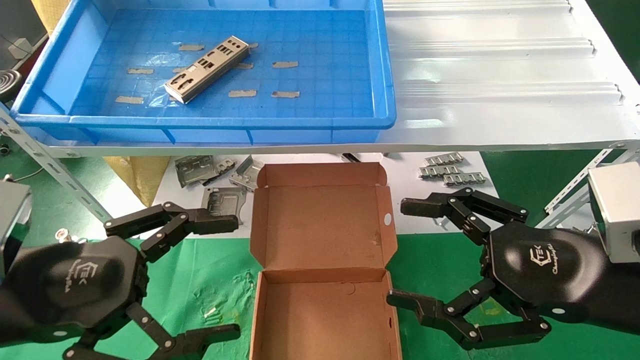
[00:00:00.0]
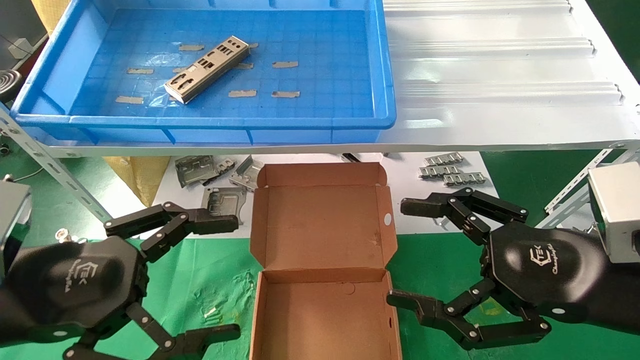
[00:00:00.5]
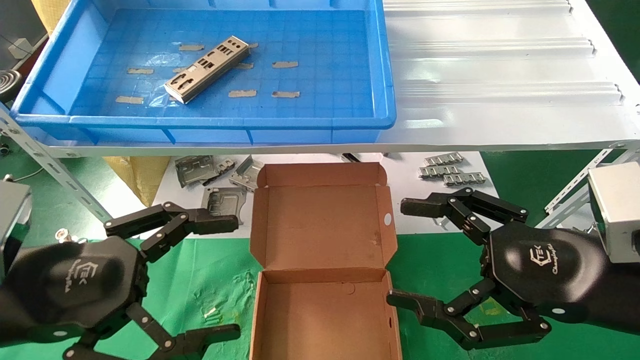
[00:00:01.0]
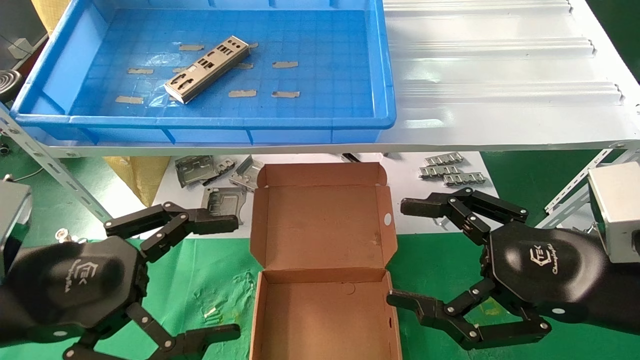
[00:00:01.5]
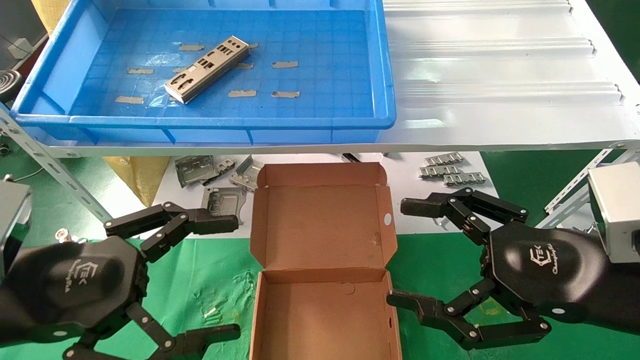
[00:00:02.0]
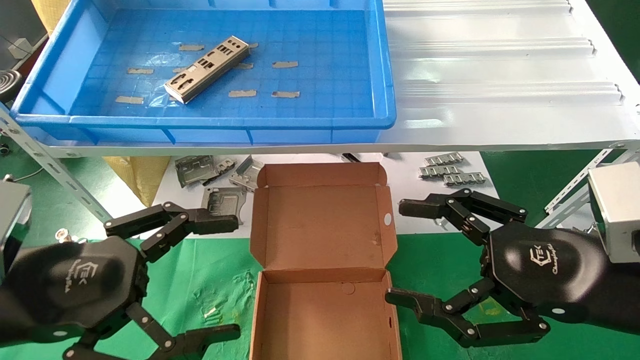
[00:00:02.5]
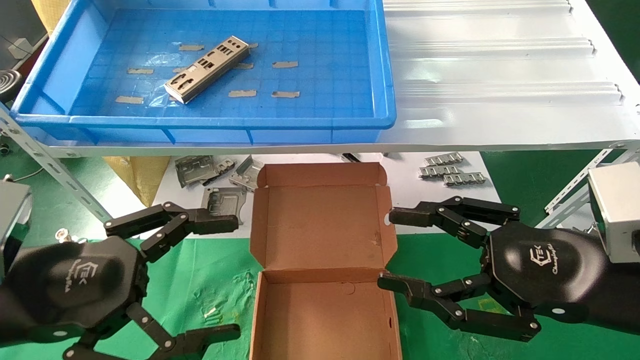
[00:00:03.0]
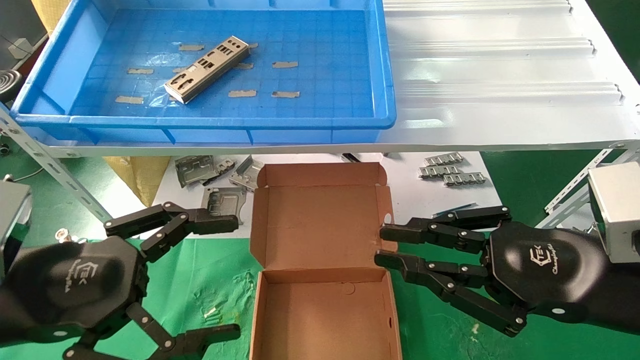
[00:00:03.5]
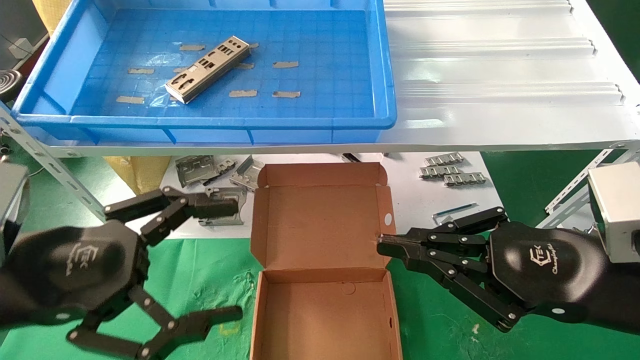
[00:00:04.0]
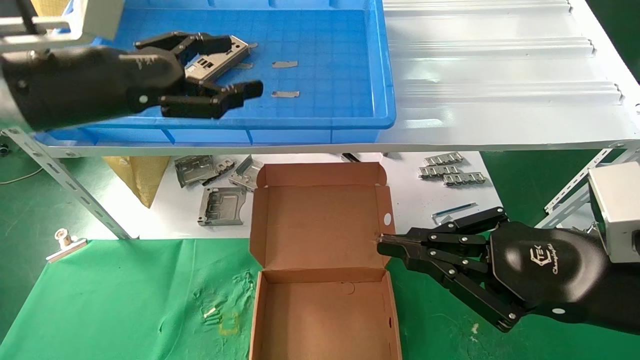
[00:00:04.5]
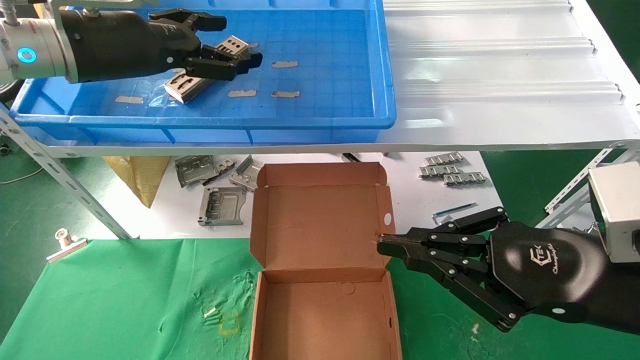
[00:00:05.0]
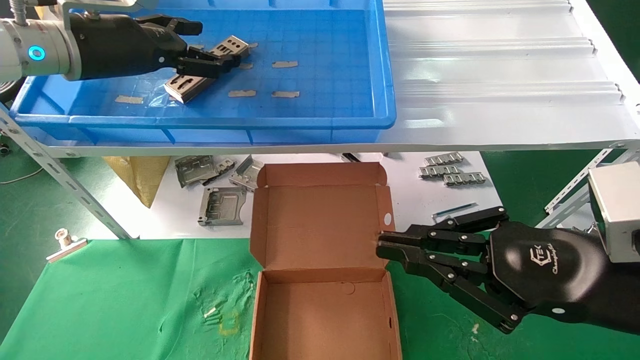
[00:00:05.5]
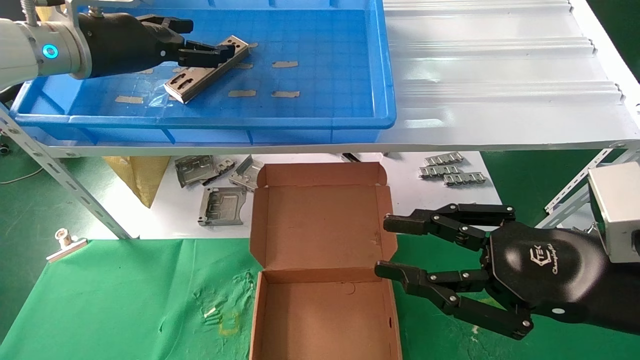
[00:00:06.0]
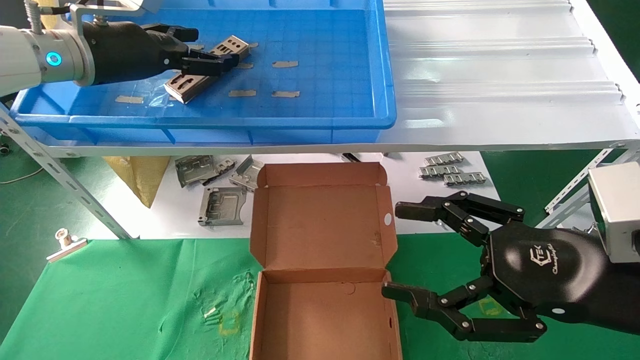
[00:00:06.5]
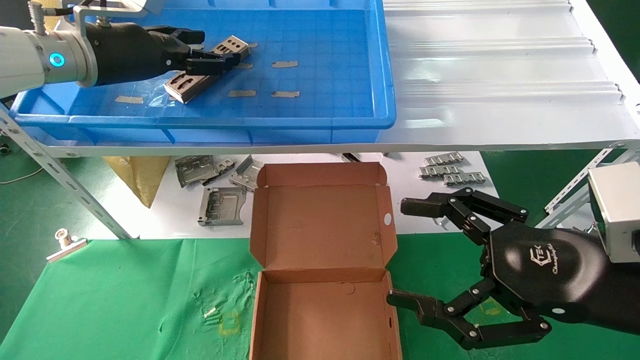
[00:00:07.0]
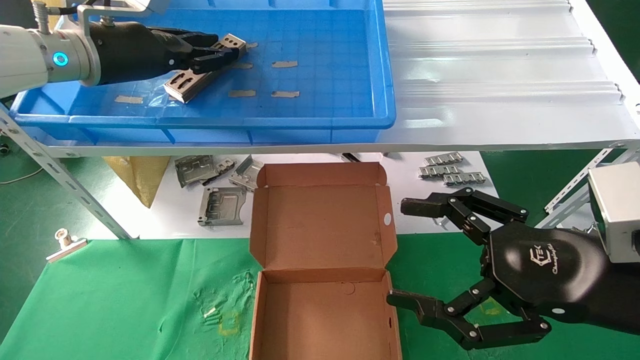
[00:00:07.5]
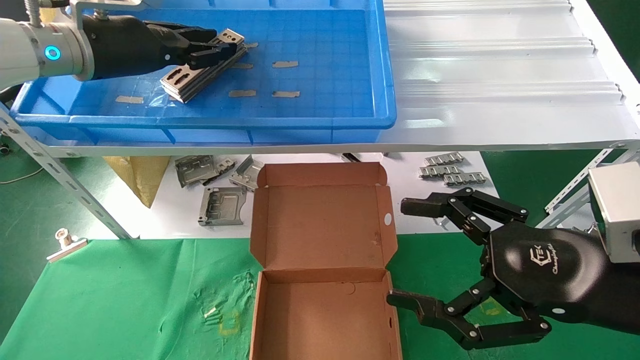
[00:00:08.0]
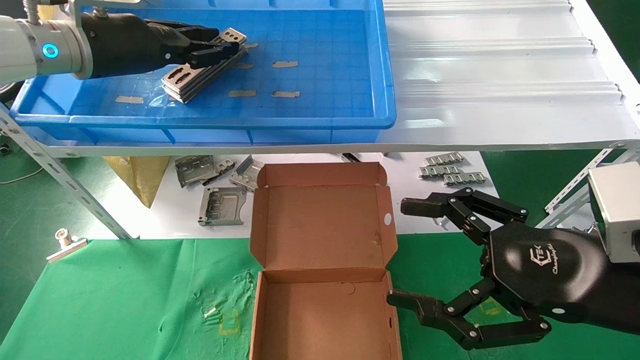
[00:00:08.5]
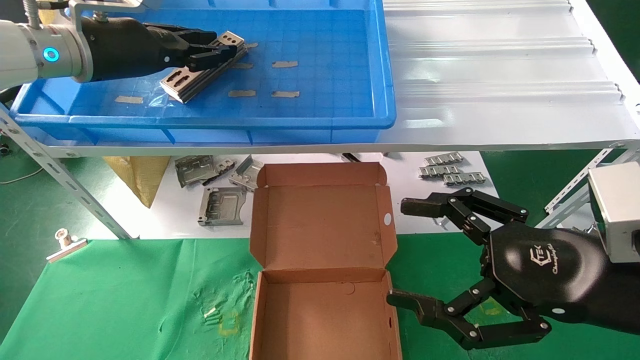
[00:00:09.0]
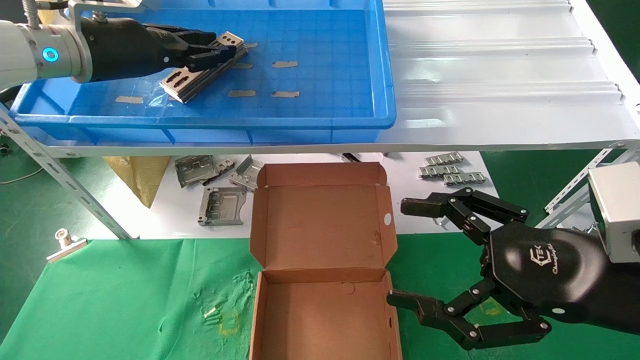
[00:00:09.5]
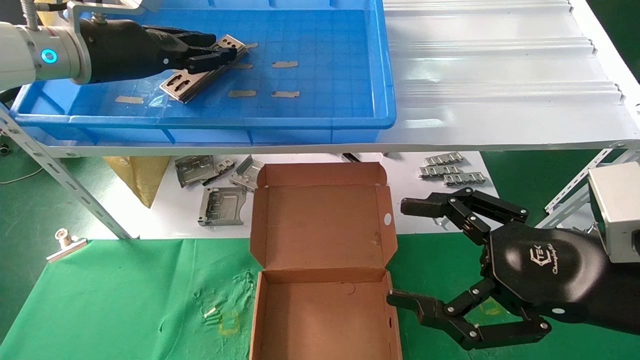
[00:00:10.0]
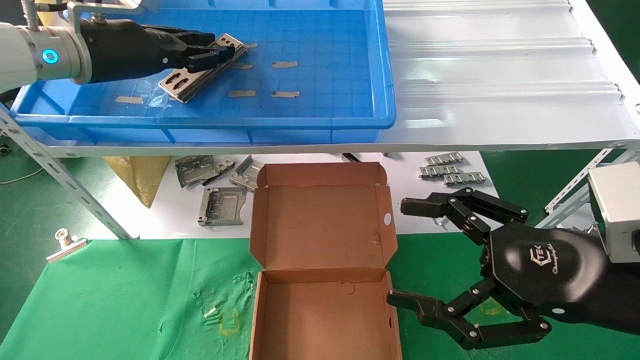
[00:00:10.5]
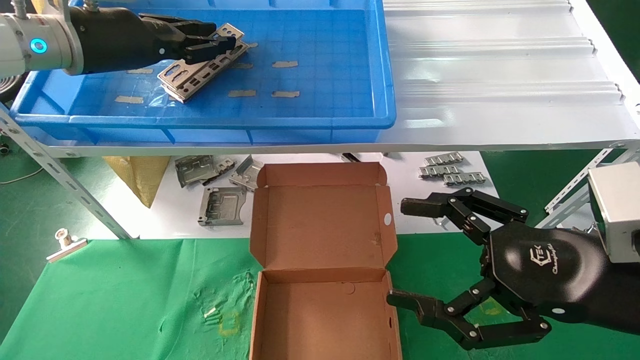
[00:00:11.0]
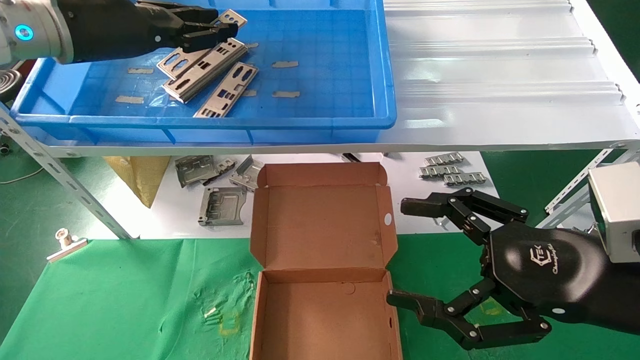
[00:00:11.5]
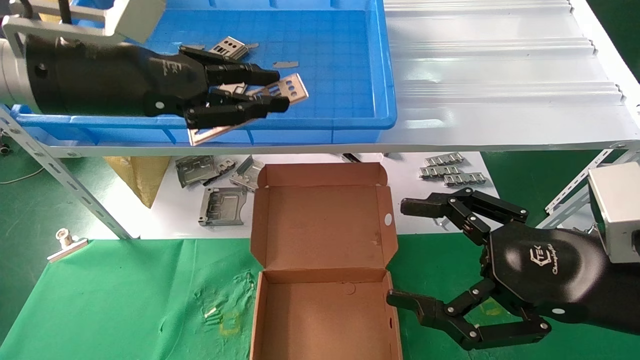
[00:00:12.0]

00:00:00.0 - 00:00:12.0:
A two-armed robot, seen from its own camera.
Task of the whole recording: pick up the parts on the tray and put them in the cardboard box.
Step, 00:00:04.5 - 00:00:11.0: Pick up the IO bracket from the container box.
00:00:00.0 - 00:00:02.0: Both grippers stay put.
00:00:02.0 - 00:00:04.0: The right gripper closes.
00:00:04.0 - 00:00:06.0: The left gripper heads forward and upward, covering some 25 cm.
00:00:06.0 - 00:00:08.0: The right gripper opens. Meanwhile the left gripper closes its fingers.
00:00:08.0 - 00:00:10.0: Both grippers stay about where they are.
00:00:10.0 - 00:00:12.0: The left gripper heads backward, covering some 10 cm.

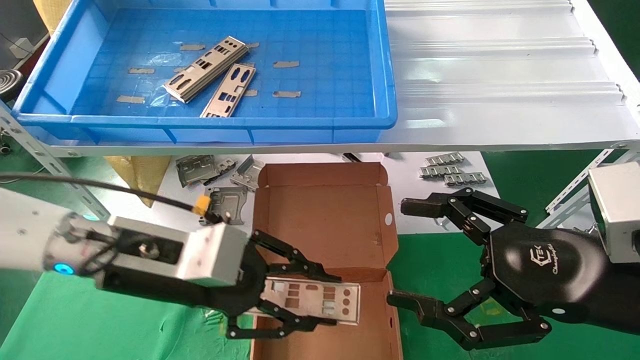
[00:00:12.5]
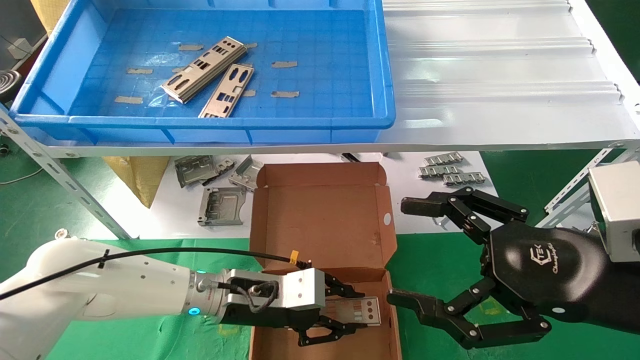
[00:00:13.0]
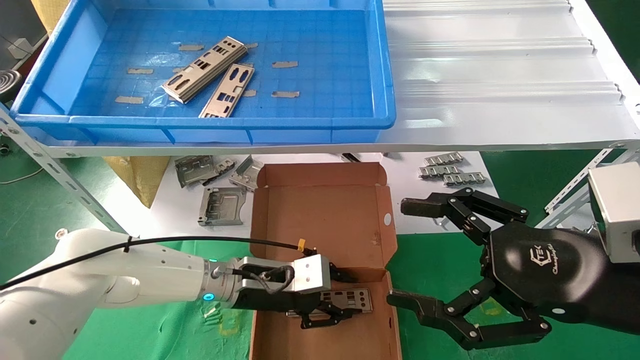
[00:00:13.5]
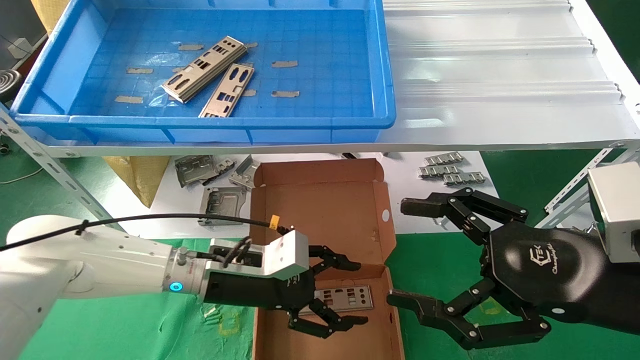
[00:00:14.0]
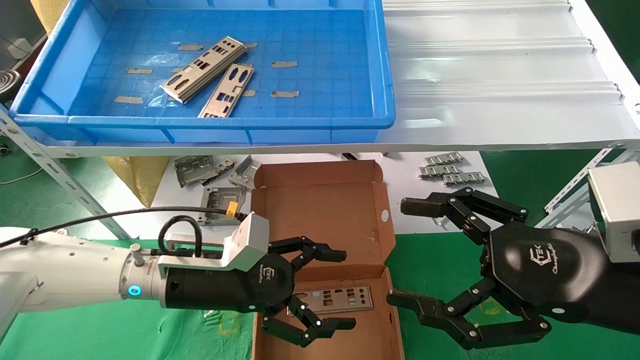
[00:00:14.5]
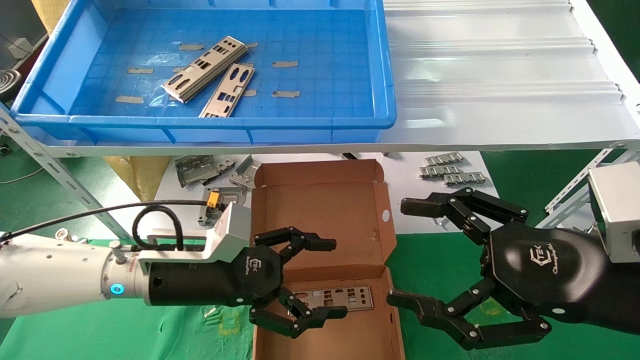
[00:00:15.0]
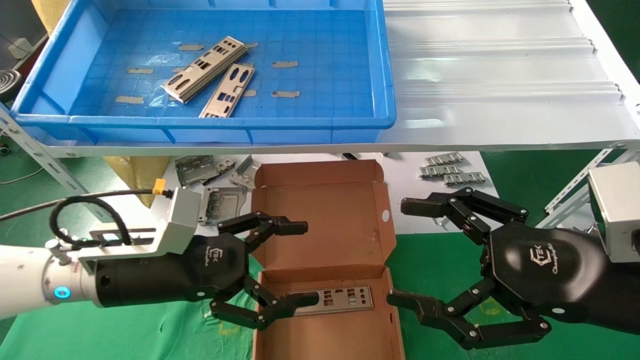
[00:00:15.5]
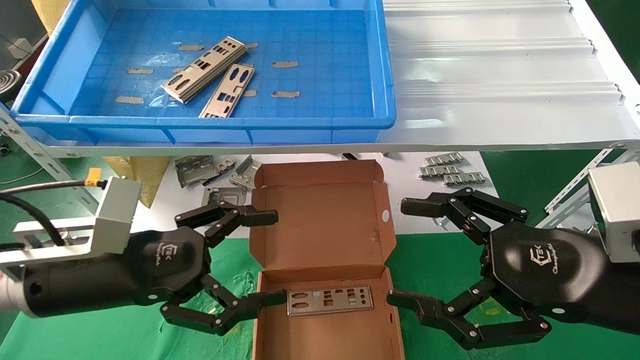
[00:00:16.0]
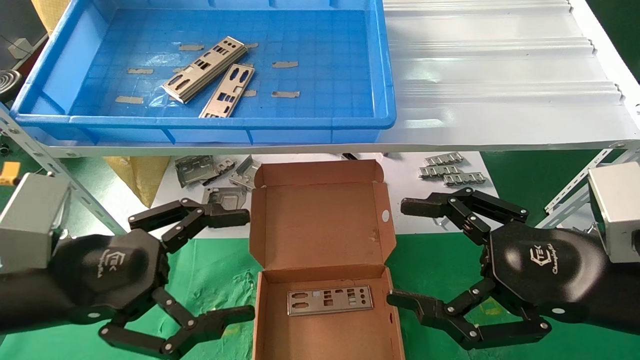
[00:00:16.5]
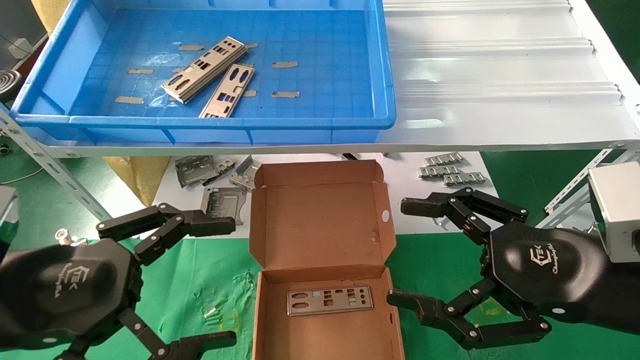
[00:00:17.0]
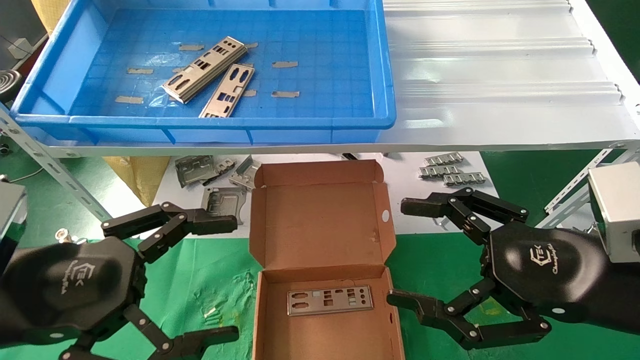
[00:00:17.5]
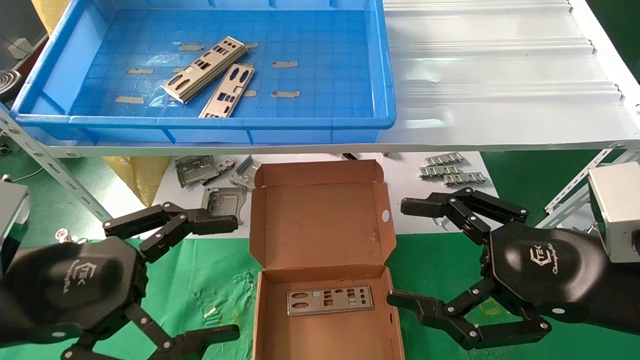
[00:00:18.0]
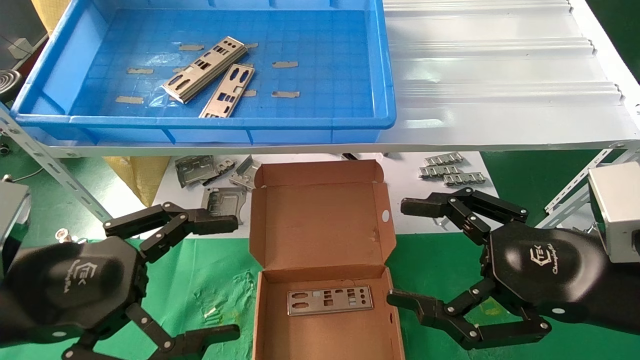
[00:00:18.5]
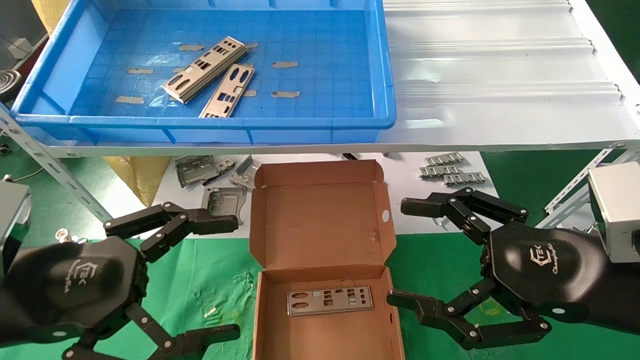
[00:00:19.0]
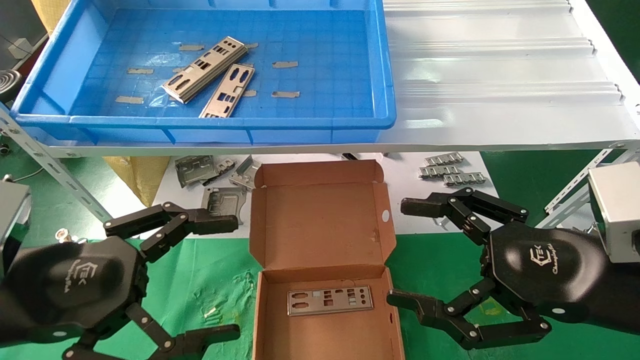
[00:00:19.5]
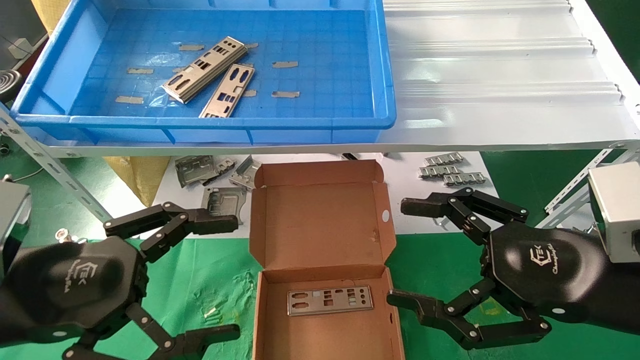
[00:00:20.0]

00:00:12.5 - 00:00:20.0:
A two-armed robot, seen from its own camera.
Task of the whole recording: pick up the parts on the tray and put them in the cardboard box.
00:00:12.5 - 00:00:14.5: The left gripper is displaced downward by some 5 cm, and opens up.
00:00:14.5 - 00:00:16.5: The left gripper goes roughly 20 cm backward, to the left and upward.
00:00:16.5 - 00:00:18.0: The grippers stay close to where they were, moving slightly.
00:00:18.0 - 00:00:20.0: Both grippers stay put.
